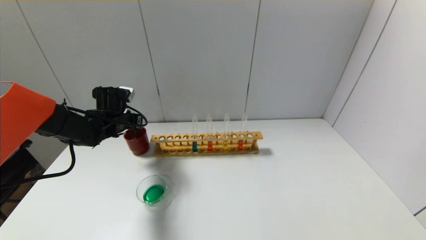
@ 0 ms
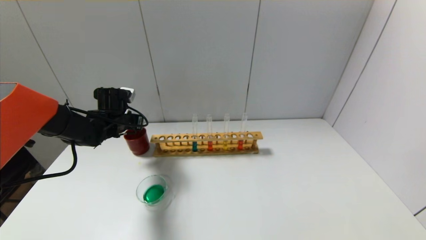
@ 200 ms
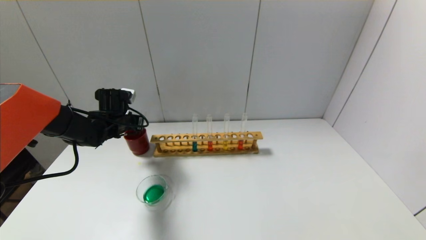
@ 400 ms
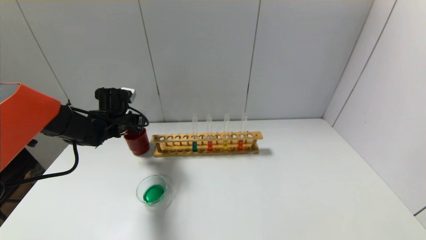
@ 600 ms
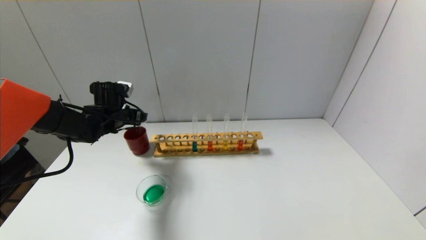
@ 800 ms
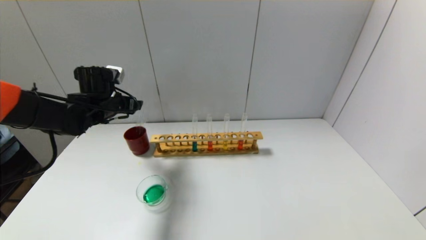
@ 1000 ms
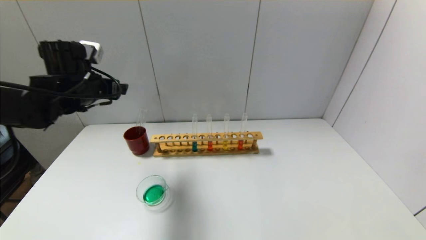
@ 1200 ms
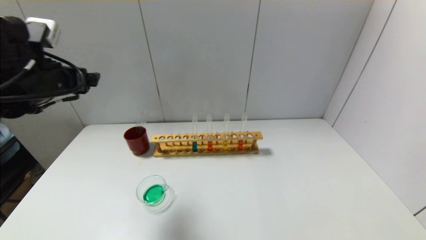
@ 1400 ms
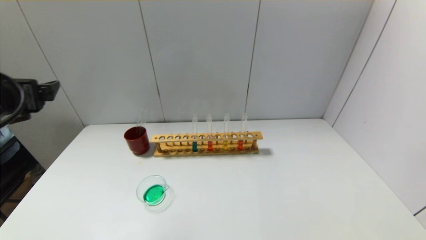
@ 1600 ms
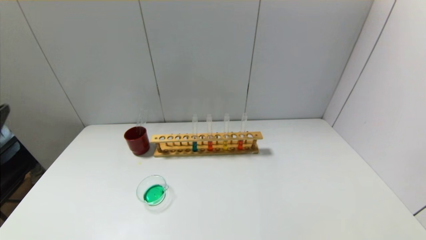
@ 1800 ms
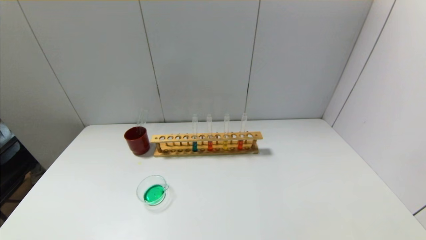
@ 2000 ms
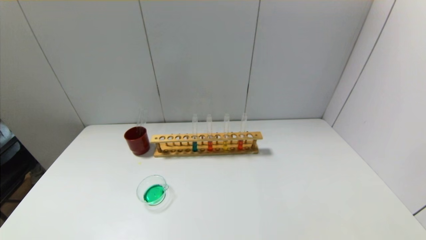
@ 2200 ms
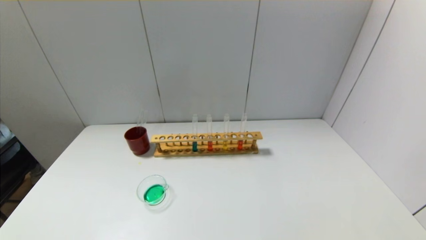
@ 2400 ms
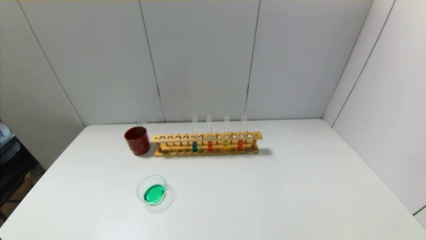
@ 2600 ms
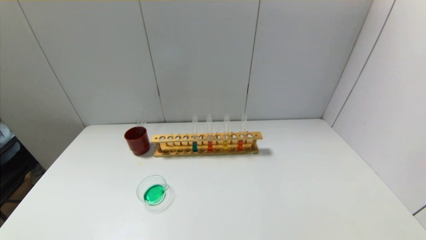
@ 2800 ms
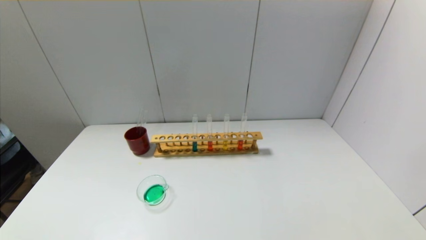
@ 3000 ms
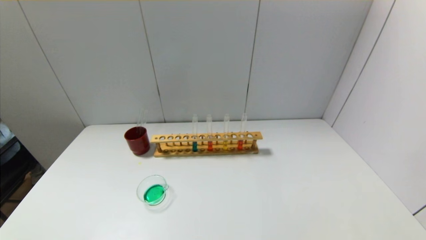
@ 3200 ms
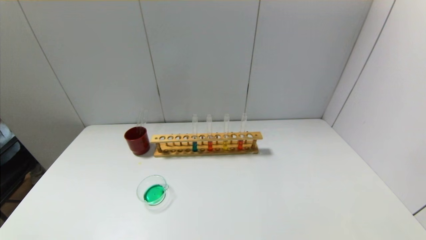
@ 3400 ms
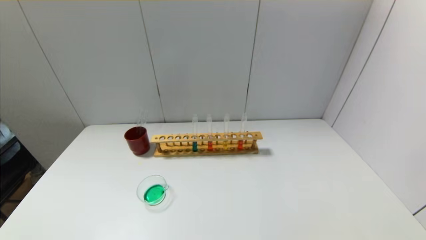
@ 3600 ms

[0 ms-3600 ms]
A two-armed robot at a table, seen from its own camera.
0 ms to 1800 ms: The left gripper heads backward and upward, covering some 35 cm, and opens its fingers.
